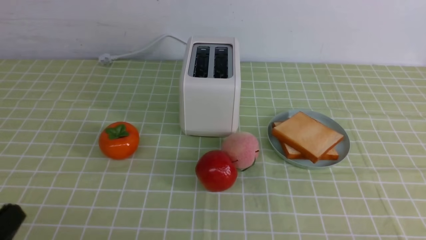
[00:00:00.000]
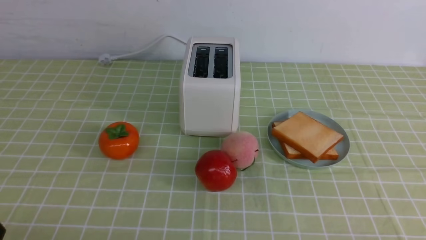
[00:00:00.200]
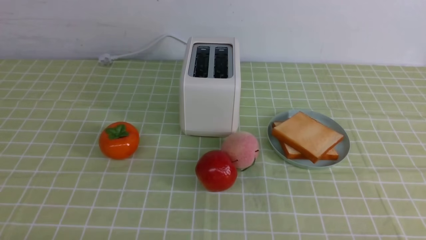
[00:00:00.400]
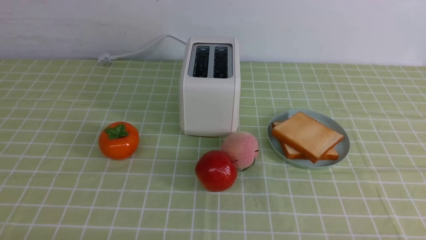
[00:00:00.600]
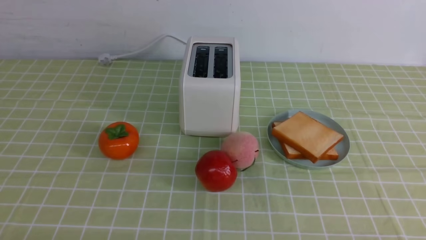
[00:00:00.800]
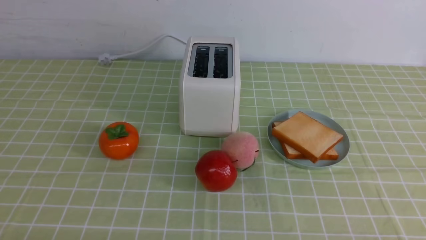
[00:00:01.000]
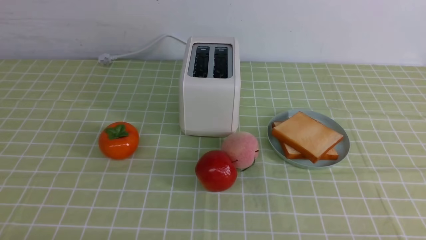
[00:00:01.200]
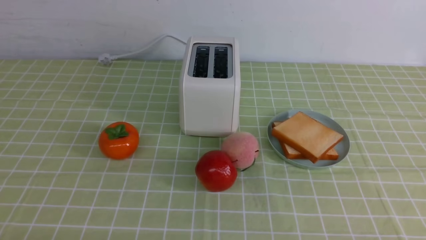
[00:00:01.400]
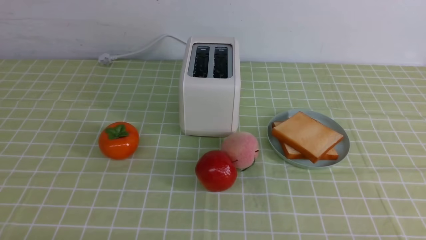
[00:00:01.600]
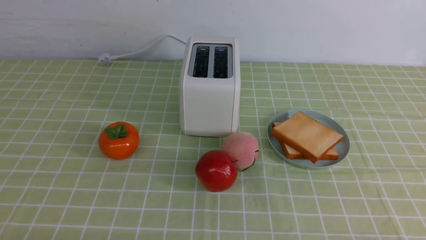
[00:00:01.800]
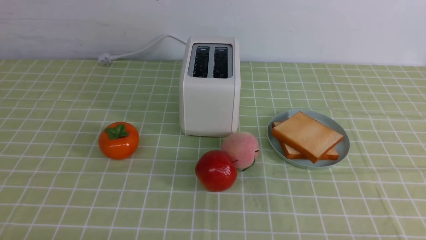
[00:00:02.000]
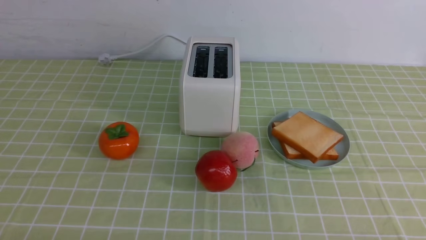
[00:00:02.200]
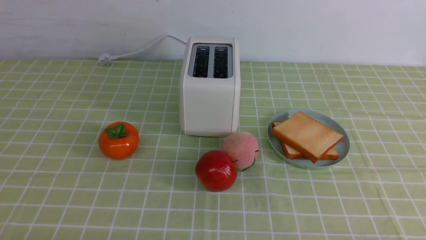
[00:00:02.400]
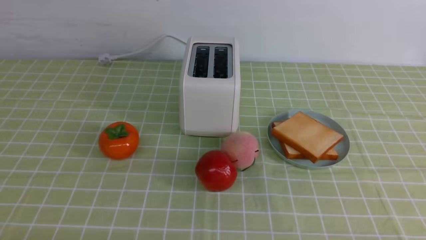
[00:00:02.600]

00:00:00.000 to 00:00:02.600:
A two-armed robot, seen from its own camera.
Task of the whole recording: take toasted bread from bread machine on green coffee tablecloth place on plate.
00:00:00.000 to 00:00:01.200: The left gripper moves downward, roughly 5 cm.
00:00:01.200 to 00:00:02.600: Both grippers stay about where they are.

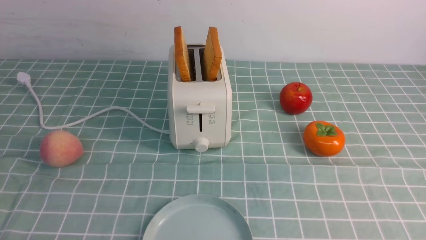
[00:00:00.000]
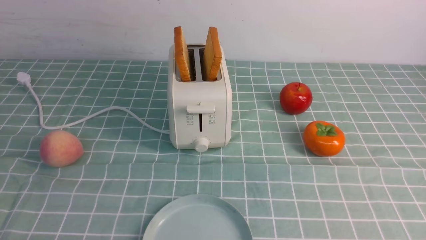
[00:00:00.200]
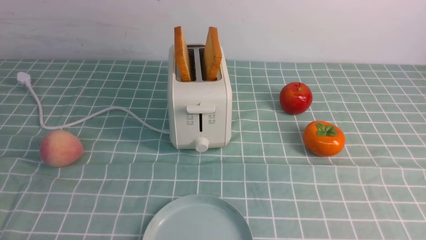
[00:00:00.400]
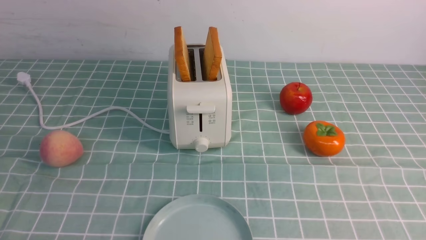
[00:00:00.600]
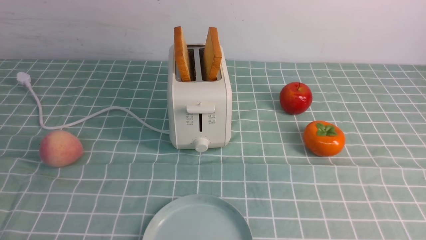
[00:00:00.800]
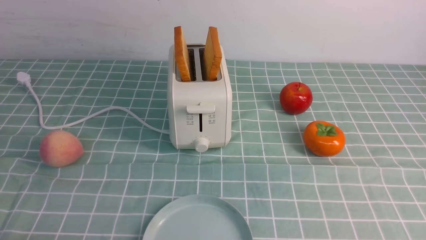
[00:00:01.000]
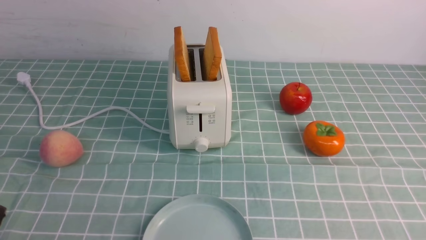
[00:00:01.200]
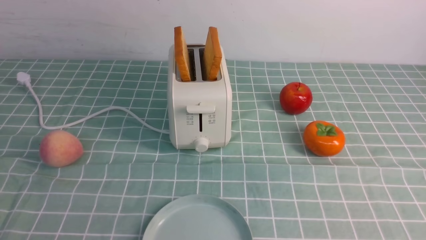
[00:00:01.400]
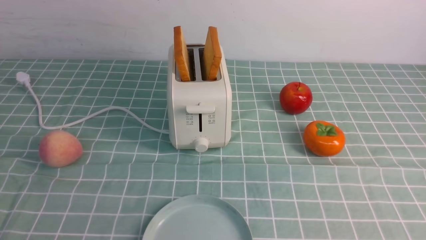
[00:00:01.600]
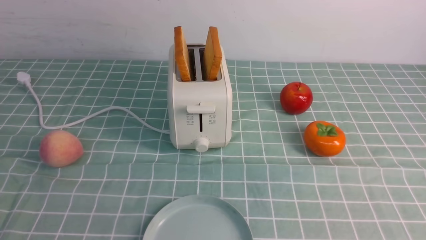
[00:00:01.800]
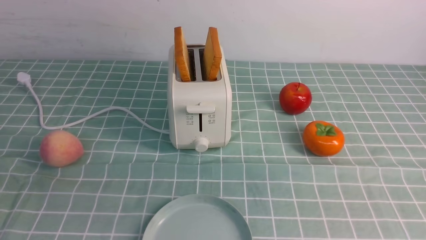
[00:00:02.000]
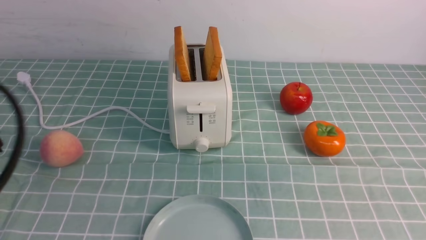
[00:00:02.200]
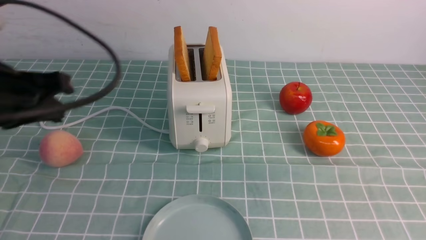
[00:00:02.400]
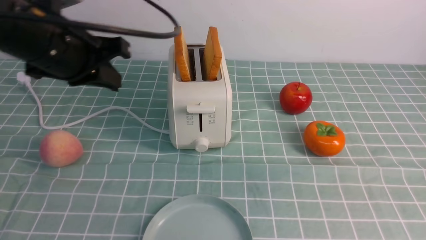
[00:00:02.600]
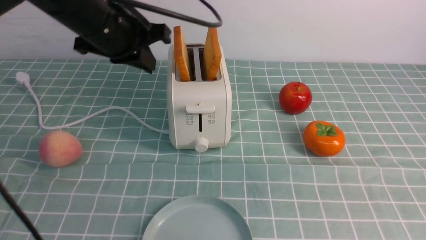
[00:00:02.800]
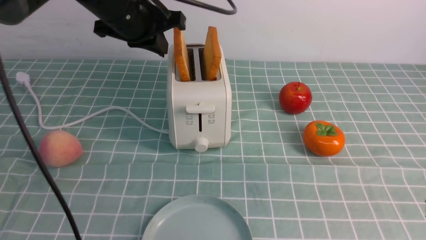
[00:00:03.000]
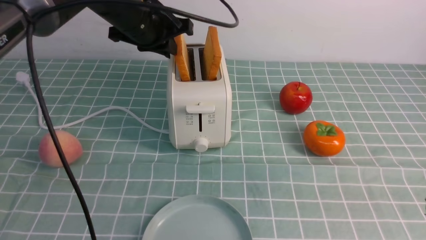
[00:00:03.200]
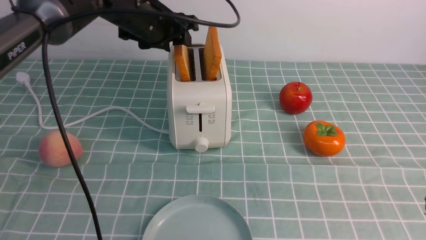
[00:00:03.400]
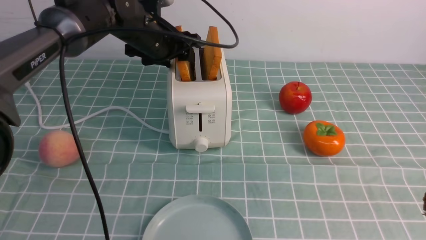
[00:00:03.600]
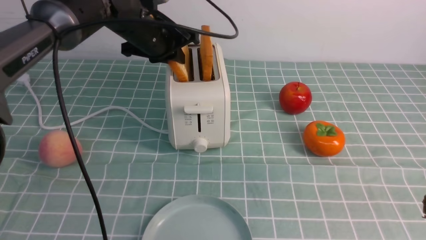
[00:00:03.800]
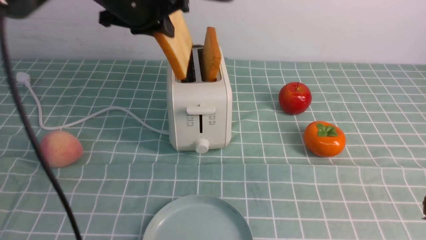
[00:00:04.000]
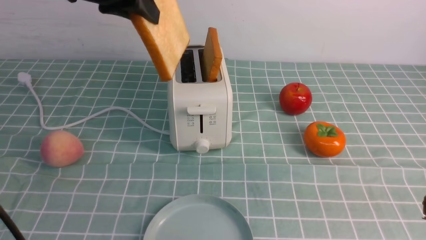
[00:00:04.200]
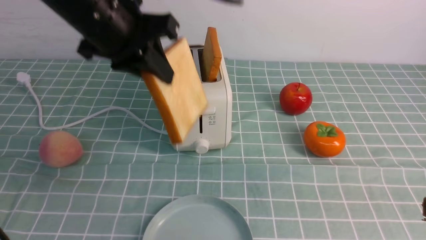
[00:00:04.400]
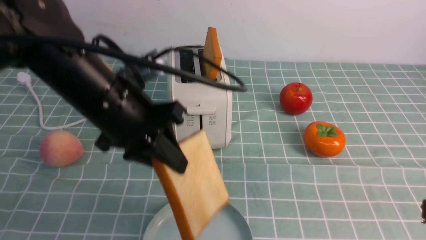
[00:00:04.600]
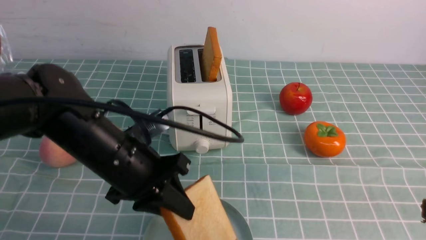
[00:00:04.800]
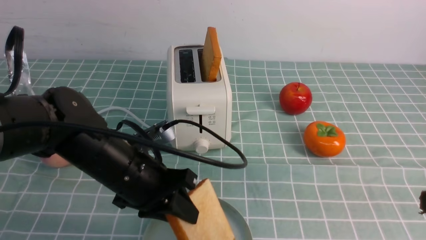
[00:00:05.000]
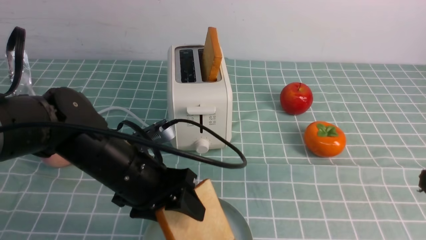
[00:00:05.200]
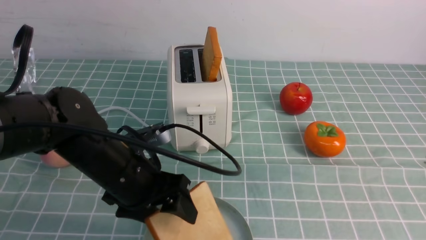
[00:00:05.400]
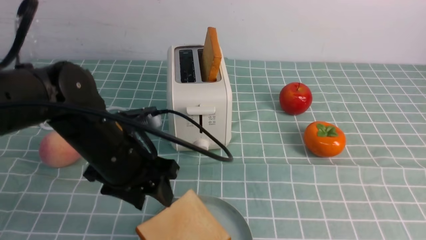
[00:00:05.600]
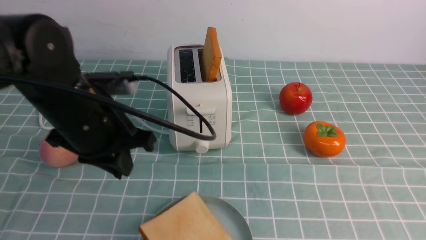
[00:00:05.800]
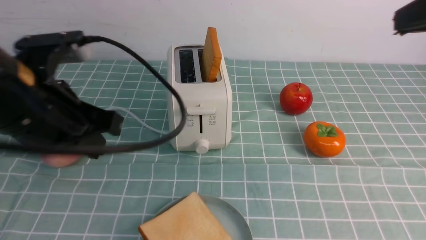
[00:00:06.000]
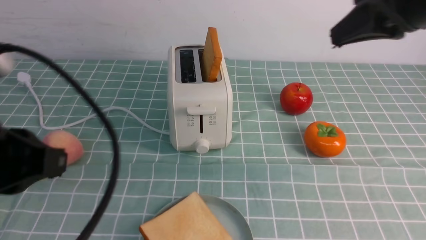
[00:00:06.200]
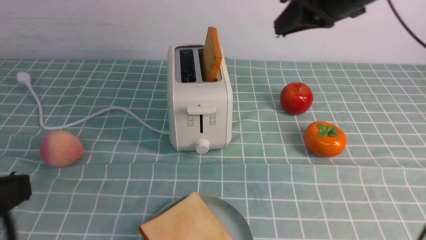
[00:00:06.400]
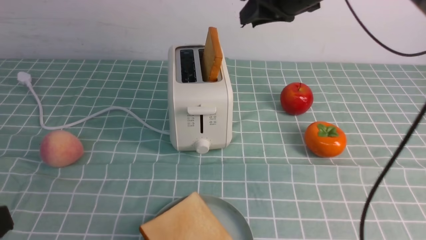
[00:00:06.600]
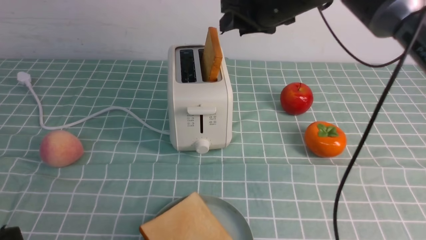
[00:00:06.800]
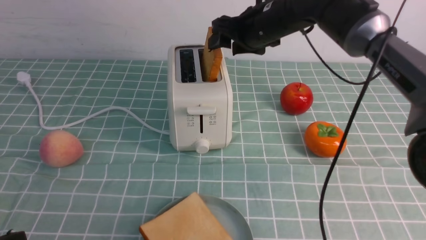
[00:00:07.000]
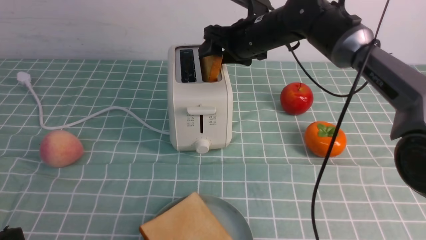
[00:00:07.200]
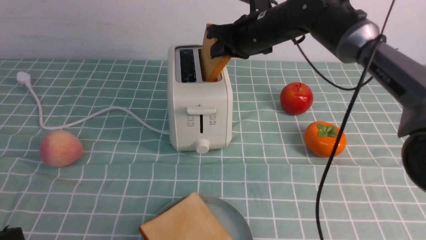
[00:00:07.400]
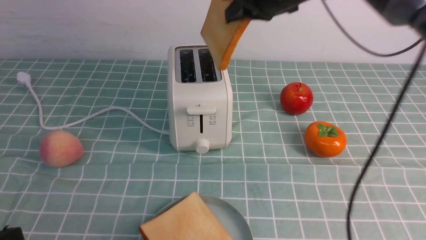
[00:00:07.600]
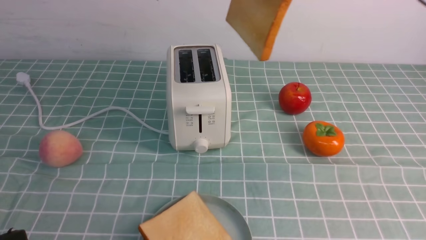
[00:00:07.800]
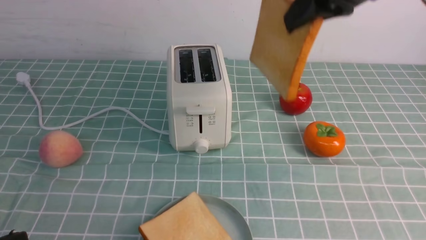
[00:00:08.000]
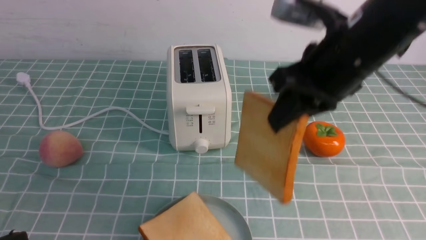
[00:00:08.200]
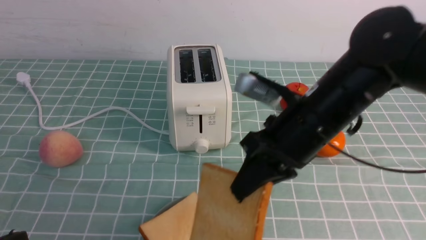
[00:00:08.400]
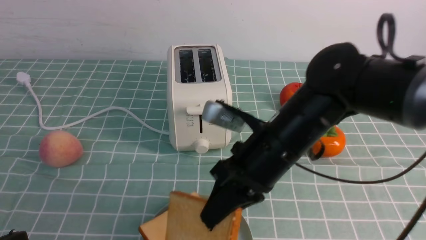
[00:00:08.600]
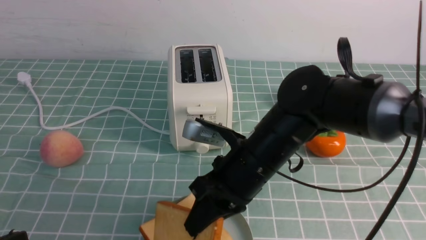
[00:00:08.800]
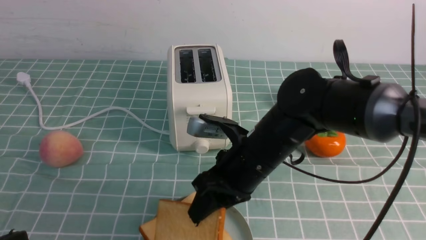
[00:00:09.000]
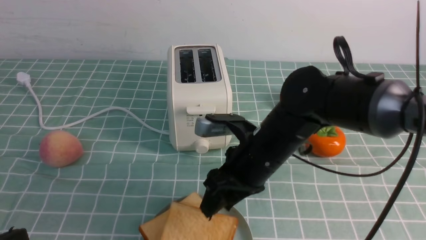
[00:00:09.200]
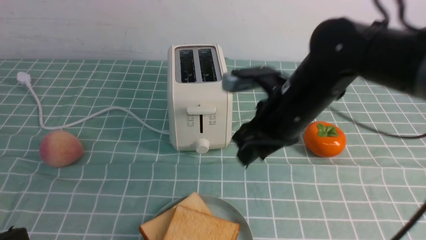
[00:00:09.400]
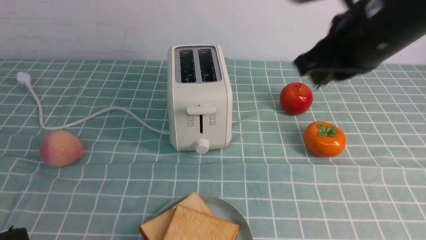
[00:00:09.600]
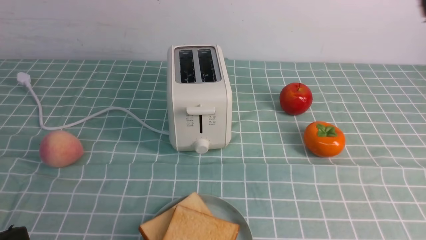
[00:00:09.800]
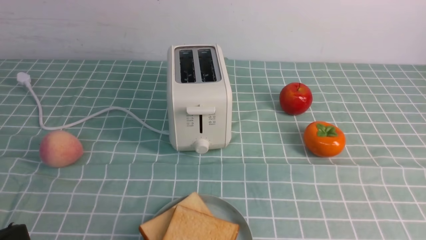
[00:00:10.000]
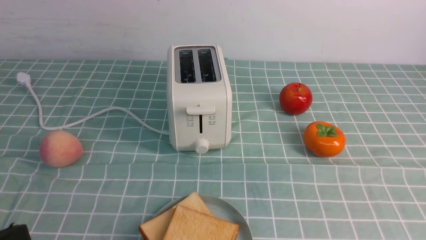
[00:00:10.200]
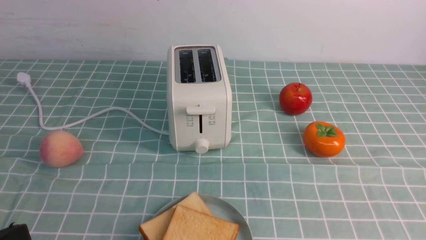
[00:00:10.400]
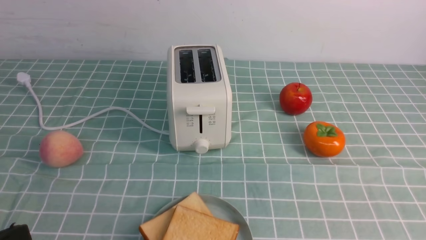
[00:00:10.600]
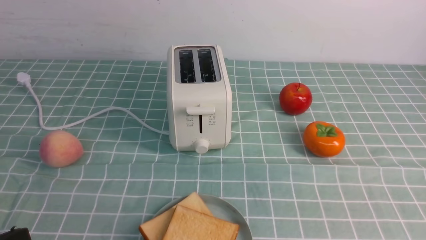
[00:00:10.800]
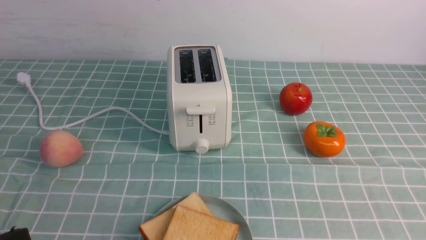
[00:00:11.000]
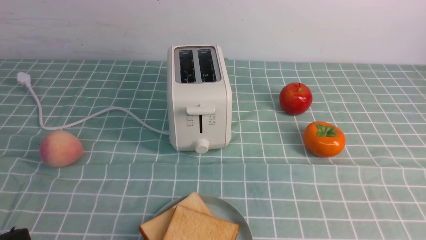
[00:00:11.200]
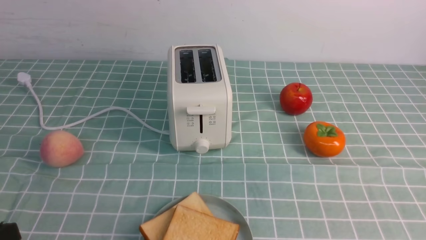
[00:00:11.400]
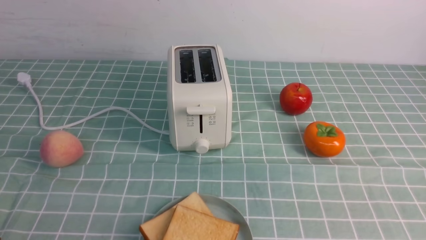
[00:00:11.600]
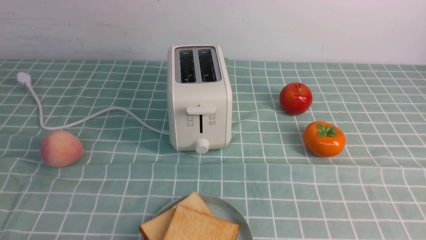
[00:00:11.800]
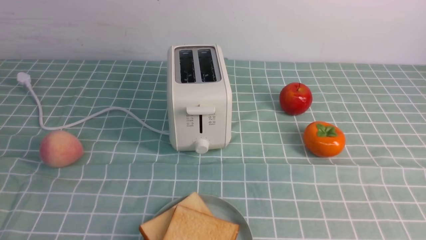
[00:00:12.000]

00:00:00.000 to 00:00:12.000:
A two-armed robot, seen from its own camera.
Task of the whole recording: take toasted bread from bread machine on blue coffee table place on plate.
Step, 00:00:00.000 to 00:00:04.200: use the left arm to take out a slice of bread.
Step, 00:00:04.400 to 00:00:05.600: use the left arm to put a slice of bread into the empty plate.
Step, 00:00:05.800 to 00:00:07.600: use the right arm to take out a slice of bread.
Step, 00:00:07.800 to 00:00:09.200: use the right arm to put a slice of bread into the plate.
00:00:01.600 to 00:00:03.000: The right gripper heads upward and forward, covering roughly 15 cm, and closes up. Meanwhile the left gripper travels forward and upward by approximately 35 cm, and closes up.
00:00:03.000 to 00:00:04.400: The left gripper goes about 5 cm backward, and opens, then closes again.
00:00:04.400 to 00:00:06.000: The right gripper heads upward and forward, covering some 20 cm. The left gripper moves backward and downward, some 10 cm, and opens, then closes again.
00:00:06.000 to 00:00:07.600: The right gripper travels forward and to the left by approximately 25 cm, and opens, then closes once more, while the left gripper heads backward and to the left, covering about 20 cm.
00:00:07.600 to 00:00:09.000: The right gripper shifts approximately 20 cm backward and downward.
00:00:09.000 to 00:00:10.400: The right gripper goes approximately 40 cm to the right, backward and upward, and closes up.
